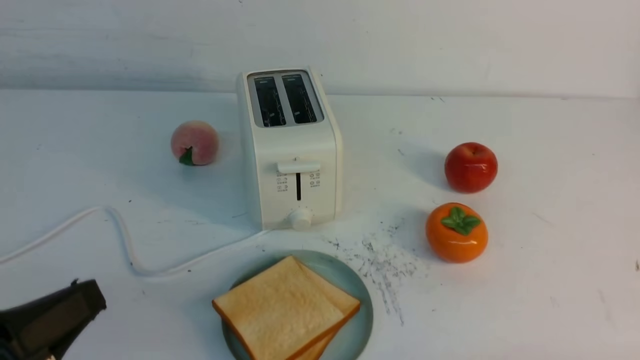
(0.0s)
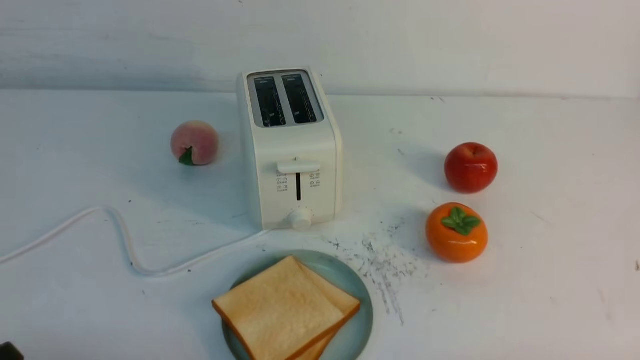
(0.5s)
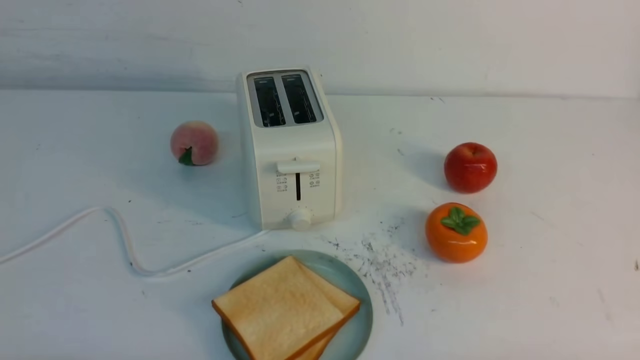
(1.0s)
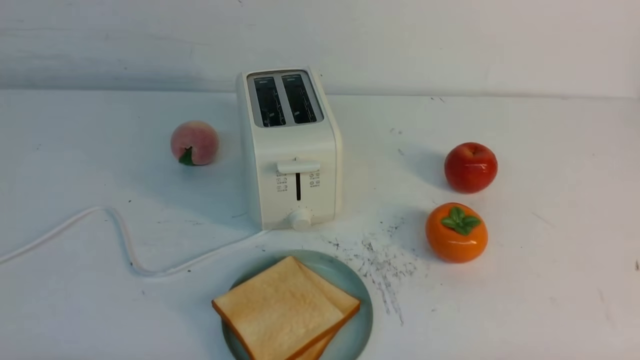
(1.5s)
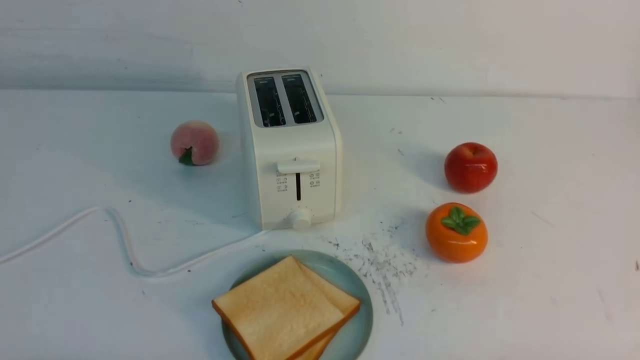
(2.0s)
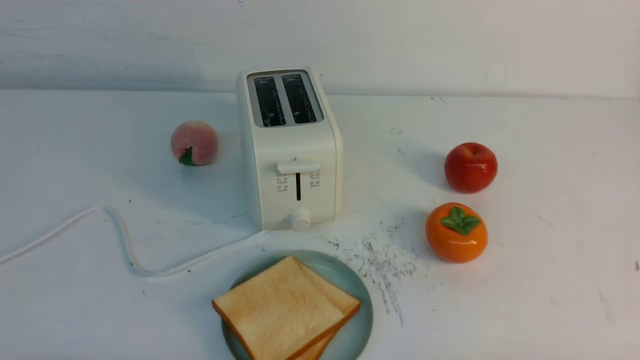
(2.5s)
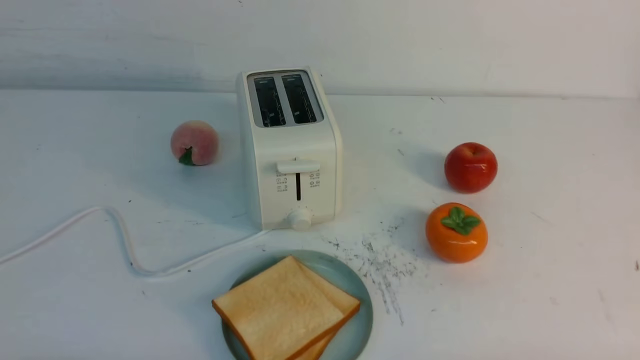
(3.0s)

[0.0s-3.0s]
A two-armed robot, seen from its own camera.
Task of the whole recording: take toasted bread from bread machine on white table place on plate.
0.0s to 1.5s: The left gripper shifts approximately 10 cm downward.
1.5s to 3.0s: Neither gripper changes place.

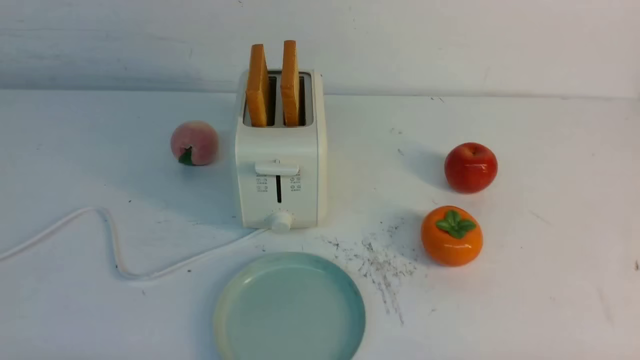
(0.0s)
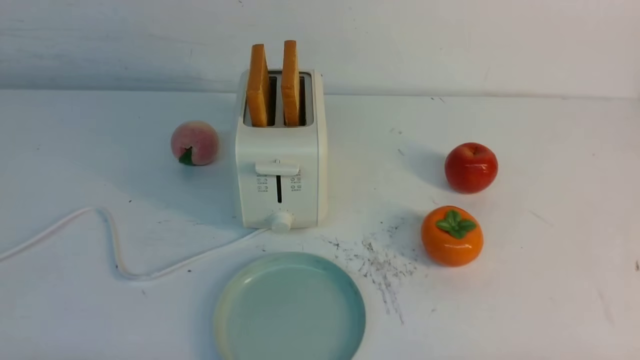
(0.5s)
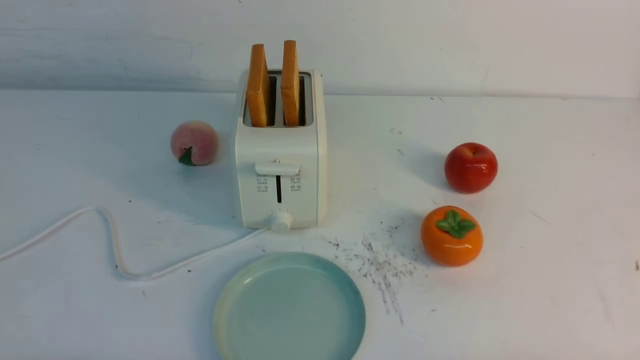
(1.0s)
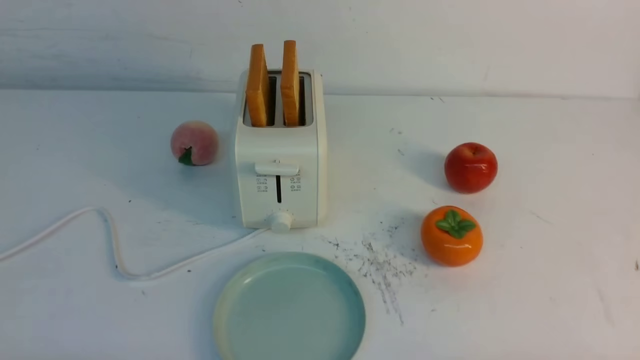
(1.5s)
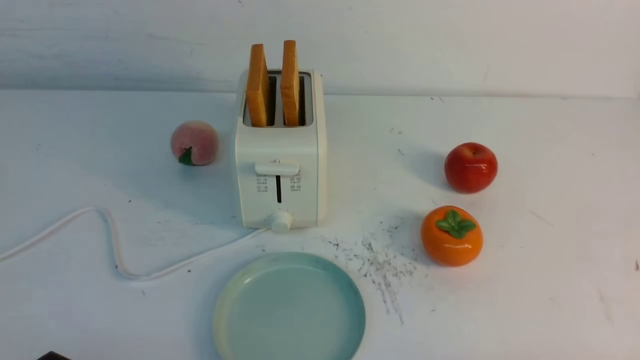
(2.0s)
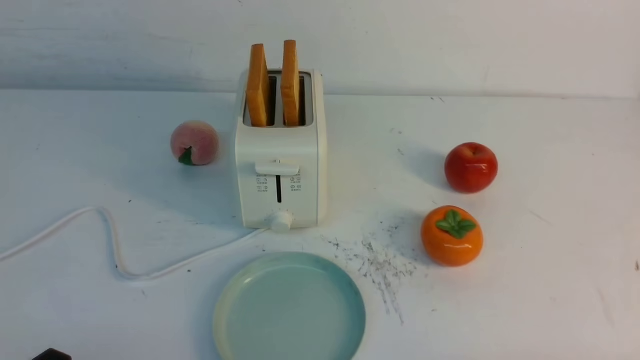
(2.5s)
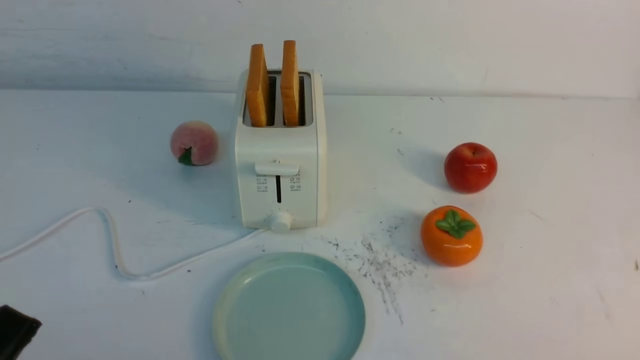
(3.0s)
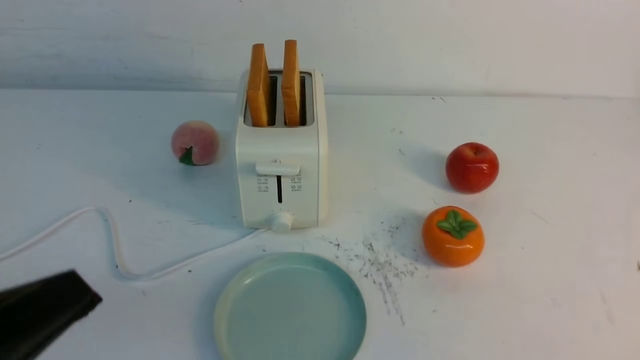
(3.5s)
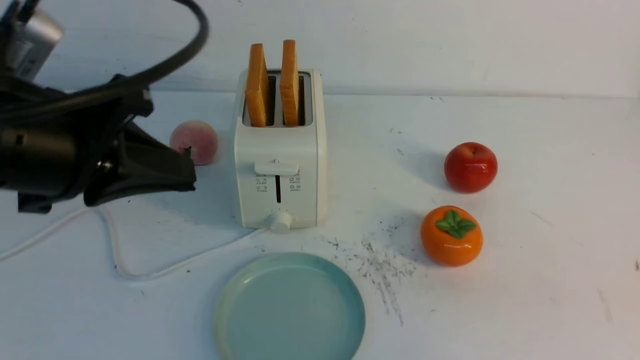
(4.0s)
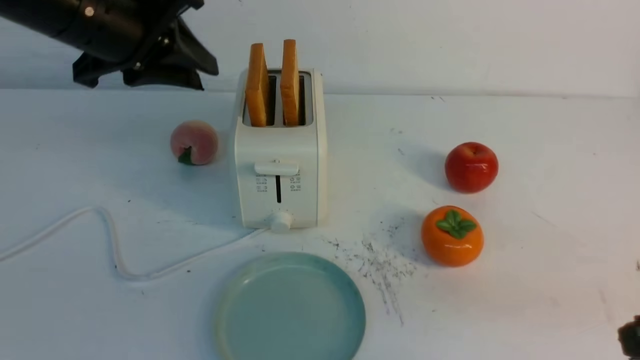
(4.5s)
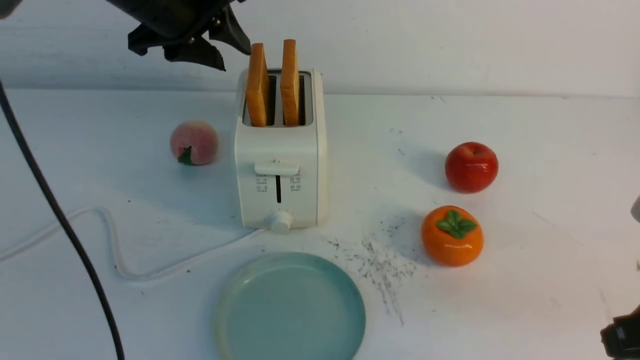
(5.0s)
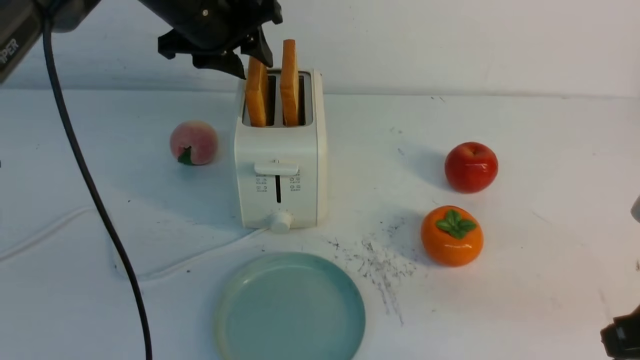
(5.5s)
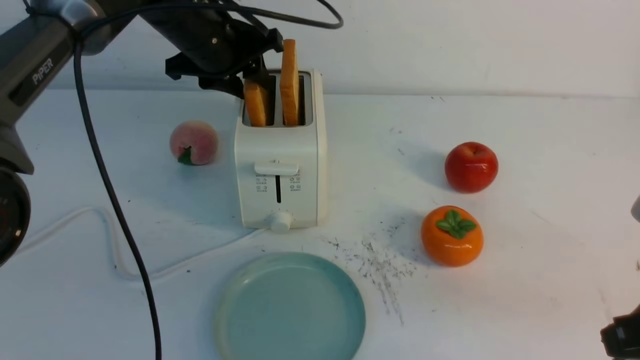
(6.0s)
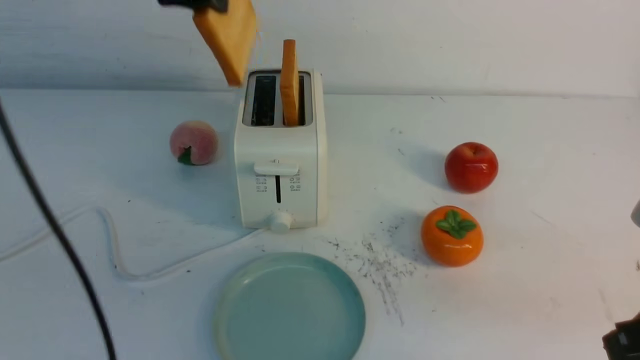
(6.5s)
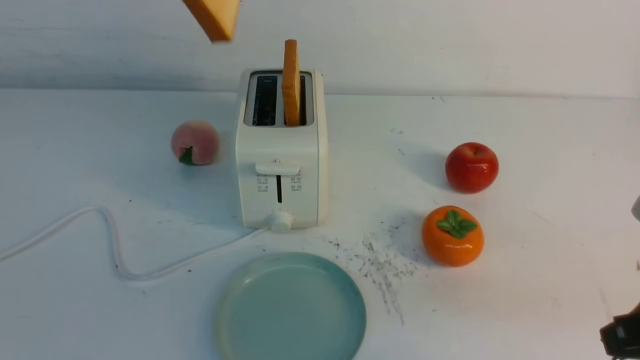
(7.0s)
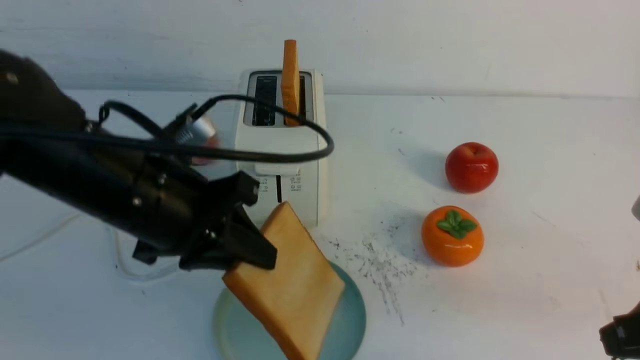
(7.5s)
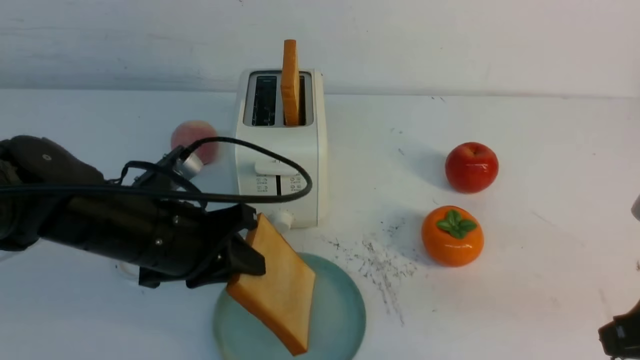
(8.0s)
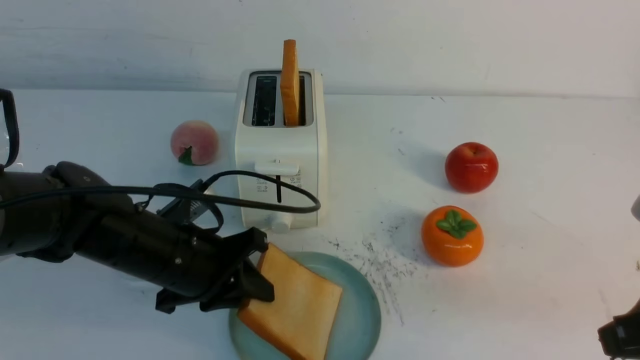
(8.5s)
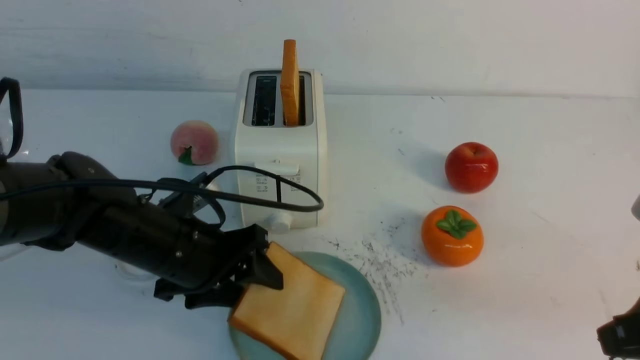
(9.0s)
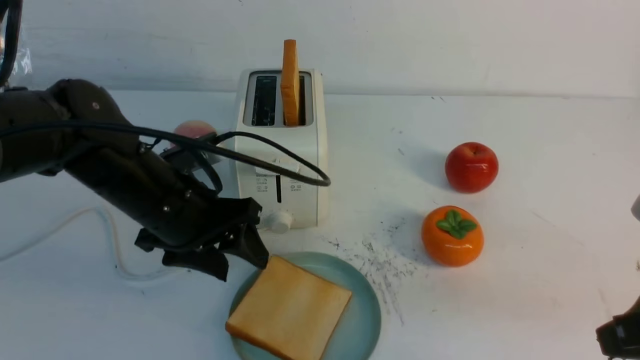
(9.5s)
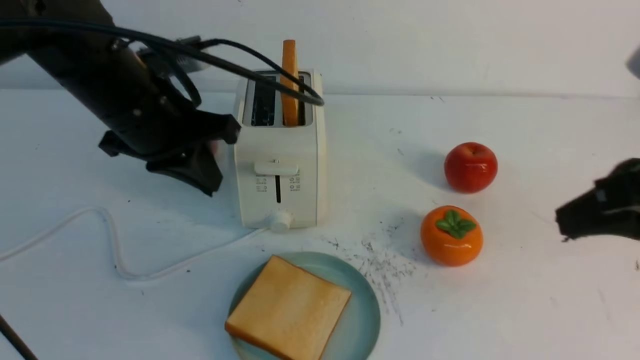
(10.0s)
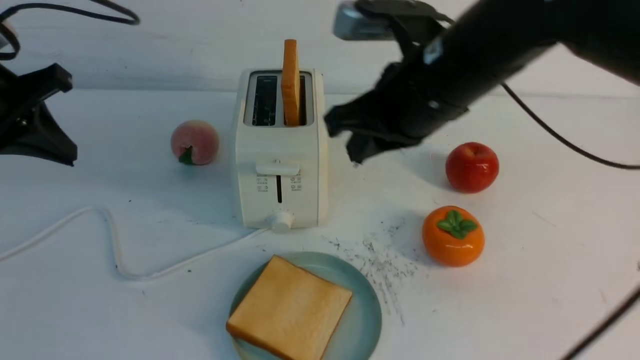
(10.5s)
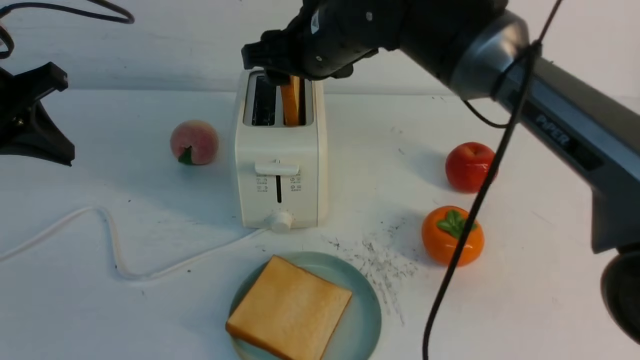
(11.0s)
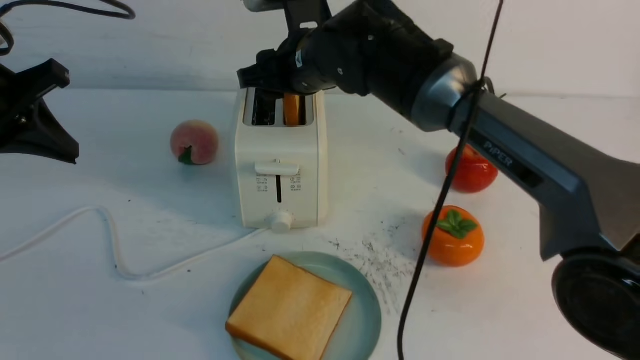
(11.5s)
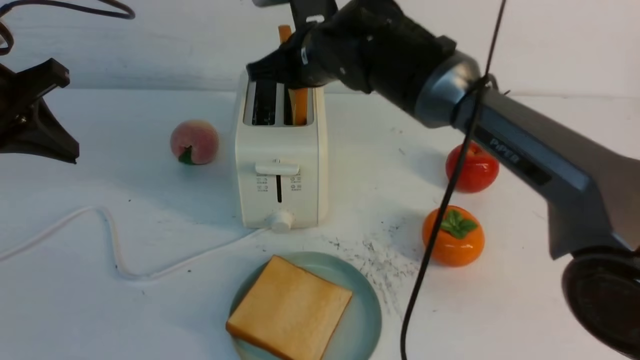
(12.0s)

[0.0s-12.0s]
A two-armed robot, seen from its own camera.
Task of the whole recording: take toasted bread from bread machine on white table place on plate.
Step, 0.0s to 6.0s: use the left arm to take out a slice of bread.
Step, 6.5s to 9.0s: use the left arm to put a slice of bread into the empty plate.
Step, 9.5s to 12.0s: use the right arm to take out a slice of bread.
2.0s to 4.0s: The left gripper shifts some 25 cm upward and forward, and closes.
4.0s to 6.0s: The right gripper heads forward, covering some 5 cm; the left gripper travels forward by approximately 25 cm, and opens its fingers.
6.0s to 8.0s: The left gripper goes some 20 cm backward and downward, and closes its fingers.
8.0s to 10.0s: The left gripper is displaced upward and forward by roughly 10 cm, and opens, then closes again; the right gripper travels upward by about 5 cm.
10.0s to 12.0s: The left gripper goes roughly 15 cm to the left; the right gripper heads forward and to the left, covering about 30 cm, and opens, then closes once more.

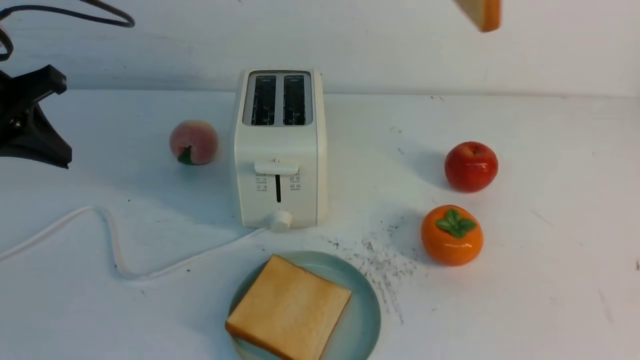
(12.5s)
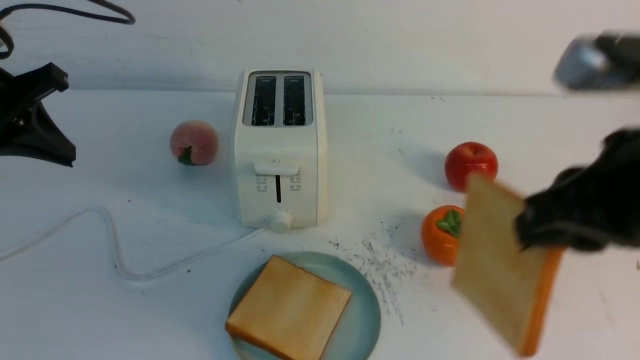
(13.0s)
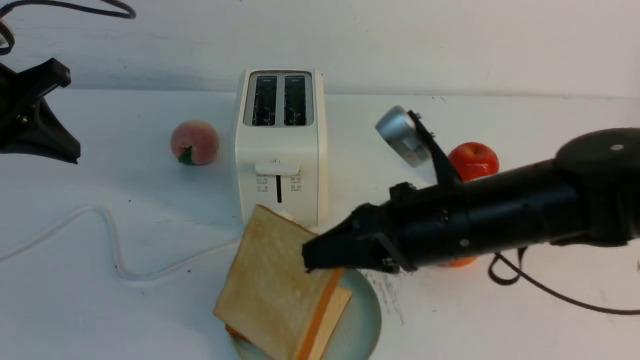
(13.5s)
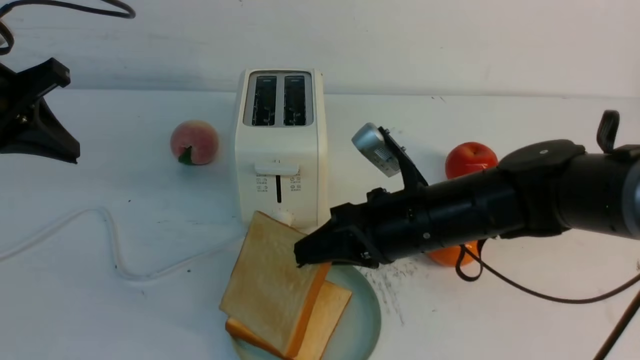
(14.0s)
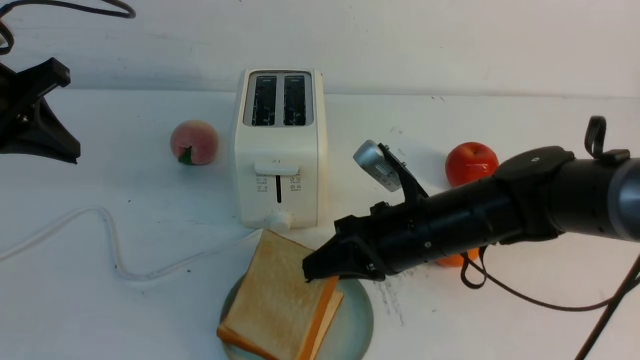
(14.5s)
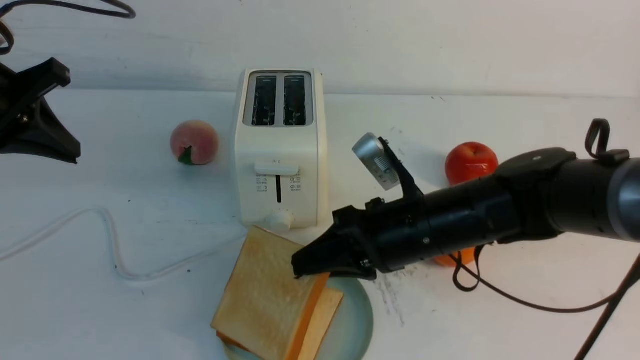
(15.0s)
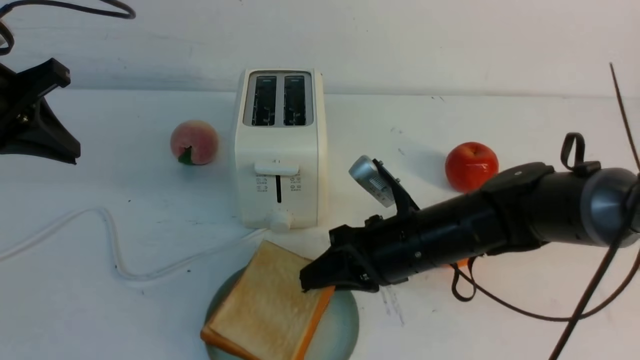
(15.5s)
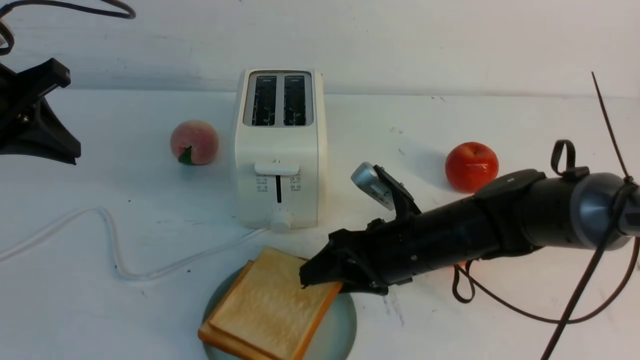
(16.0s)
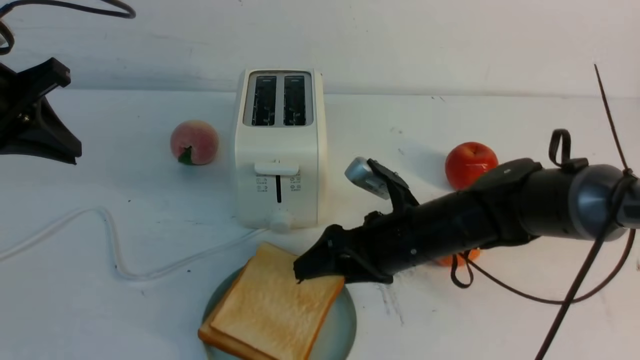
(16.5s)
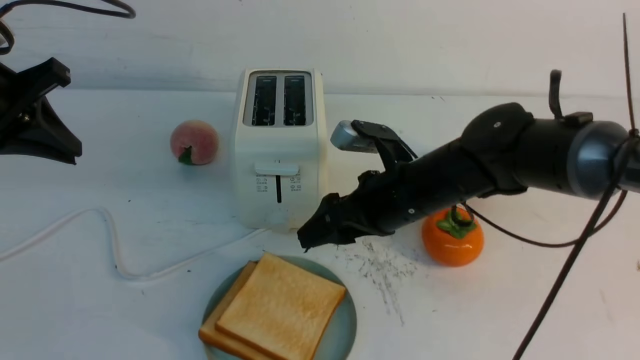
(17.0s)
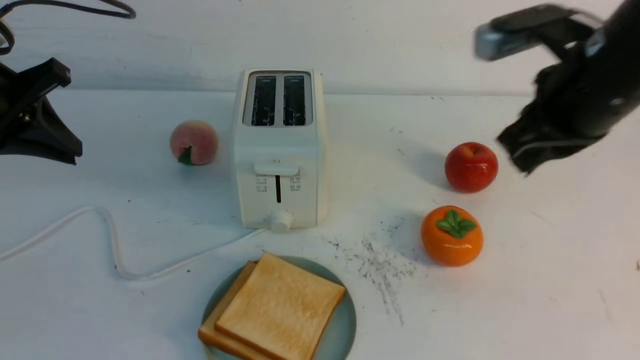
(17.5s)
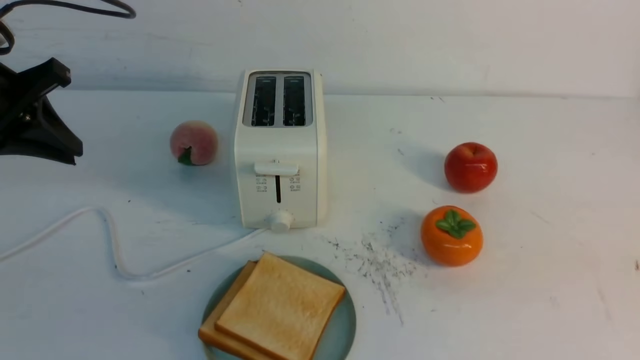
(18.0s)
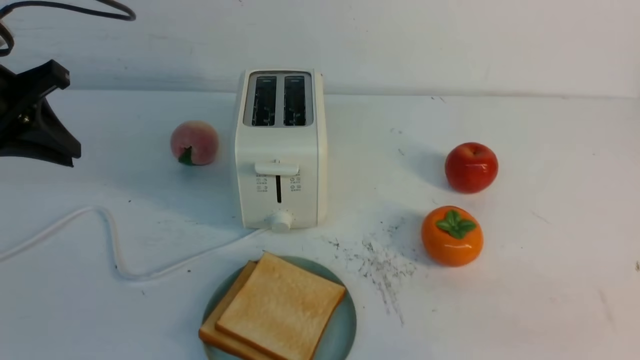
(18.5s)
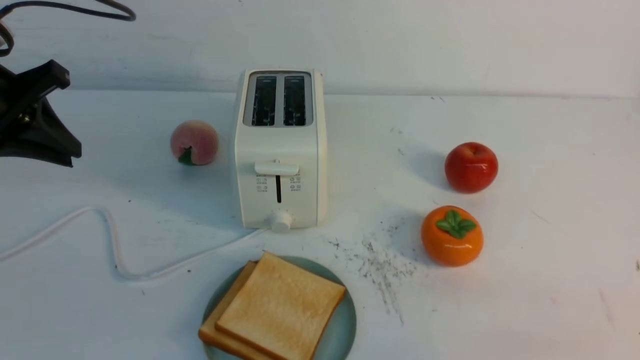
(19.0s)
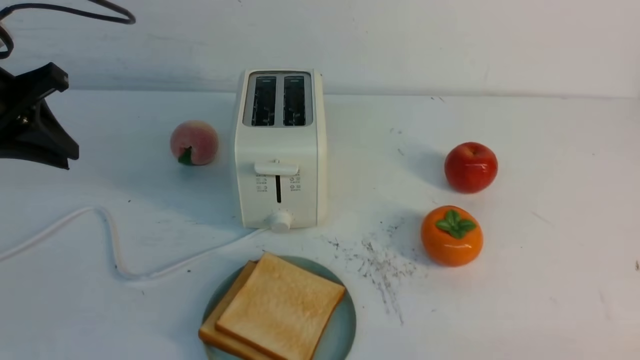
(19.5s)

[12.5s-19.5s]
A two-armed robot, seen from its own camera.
Task of the whole recording: take toasted bread from bread machine on white table place on plate.
Step, 12.5s to 16.5s: use the right arm to put a slice of bread into the plate.
12.5s to 14.5s: The right gripper heads downward, covering about 30 cm.
14.5s to 16.0s: The right gripper opens up.
16.0s to 17.5s: The right gripper shifts some 25 cm upward and to the right, and closes its fingers.
17.5s to 19.5s: The right gripper goes about 30 cm backward, downward and to the right.
